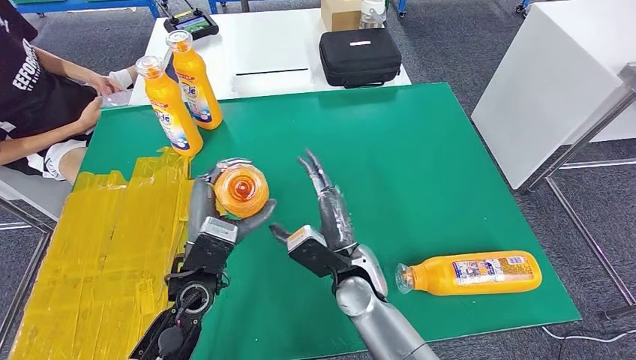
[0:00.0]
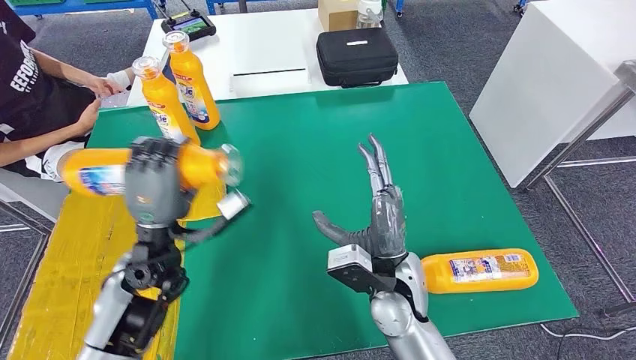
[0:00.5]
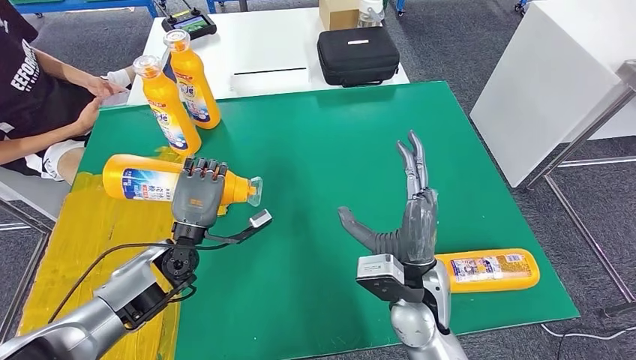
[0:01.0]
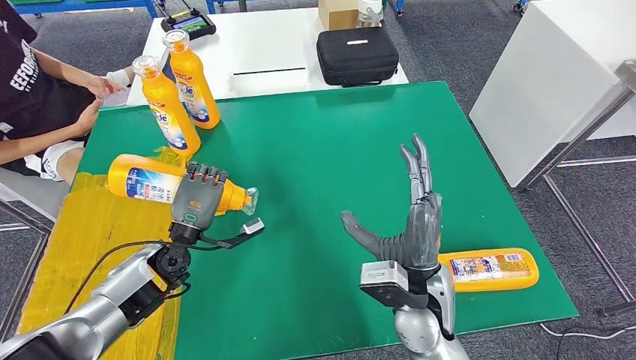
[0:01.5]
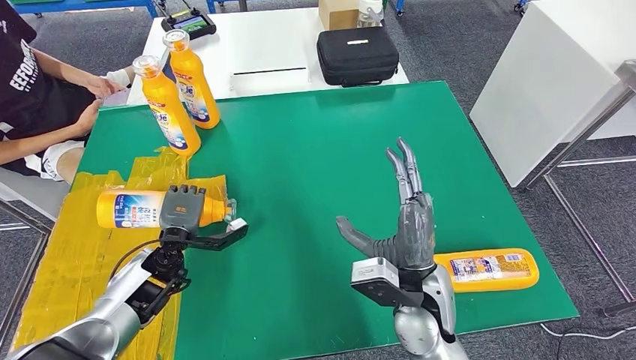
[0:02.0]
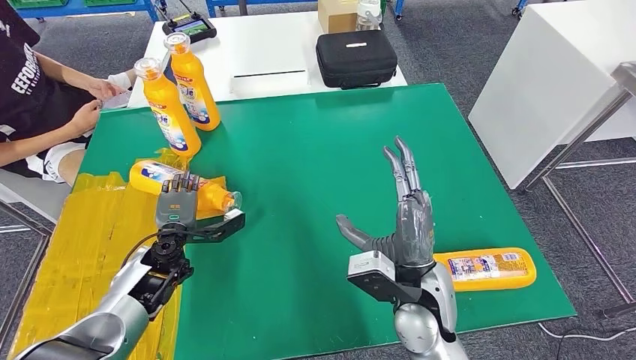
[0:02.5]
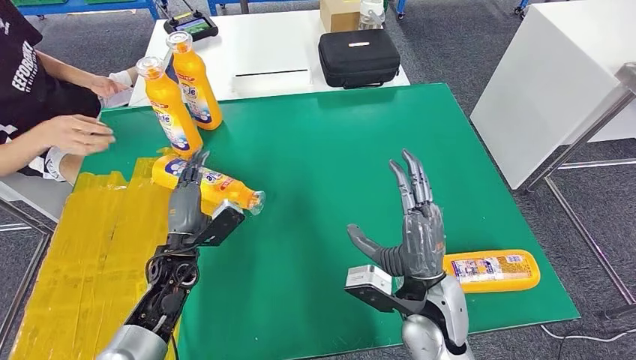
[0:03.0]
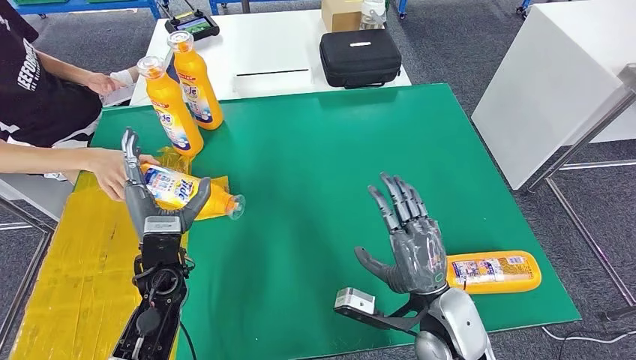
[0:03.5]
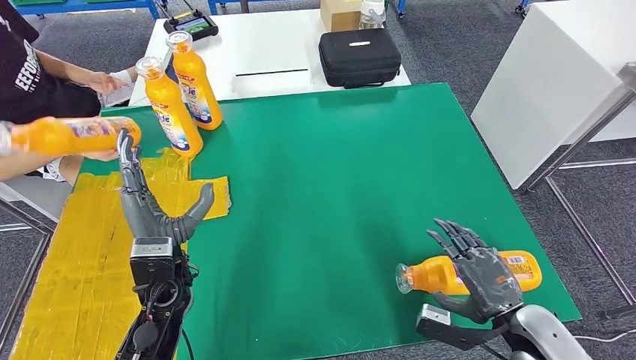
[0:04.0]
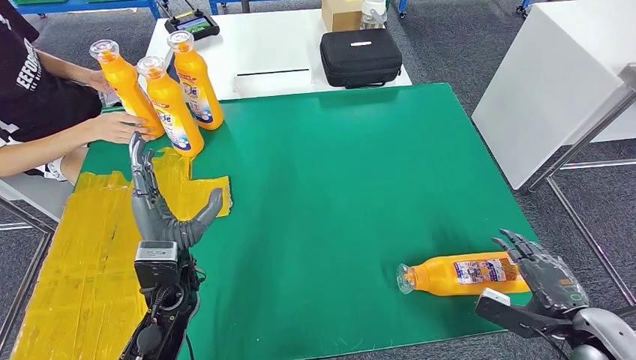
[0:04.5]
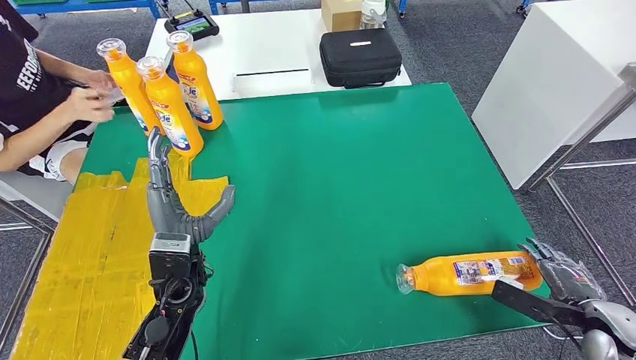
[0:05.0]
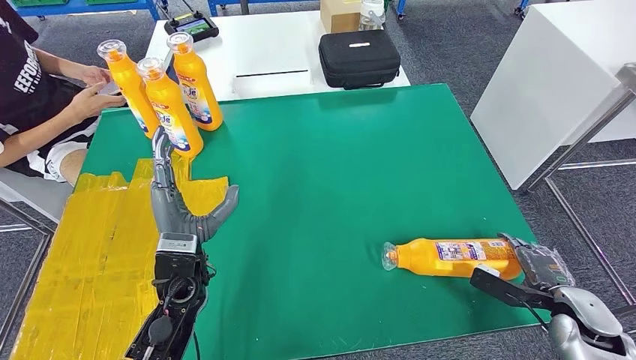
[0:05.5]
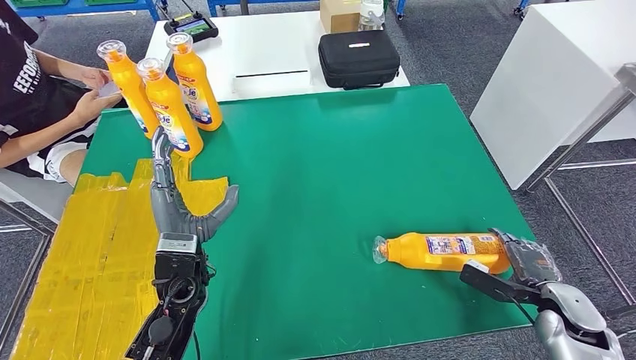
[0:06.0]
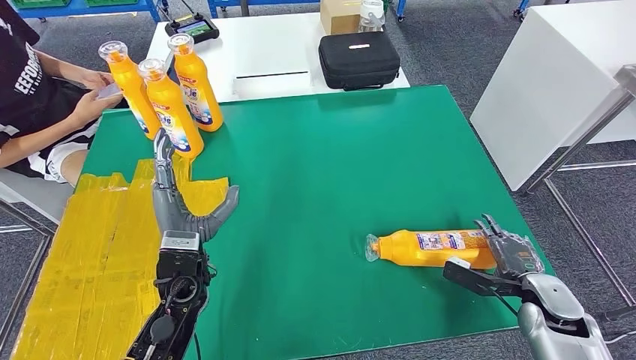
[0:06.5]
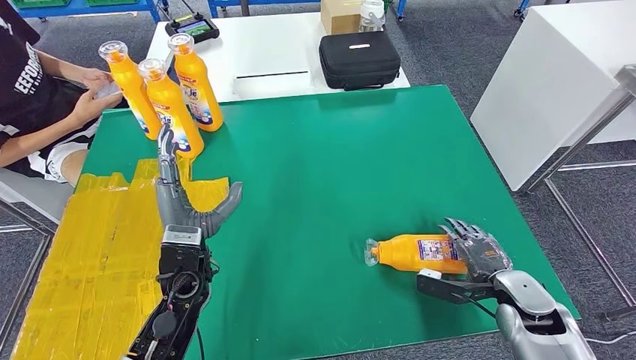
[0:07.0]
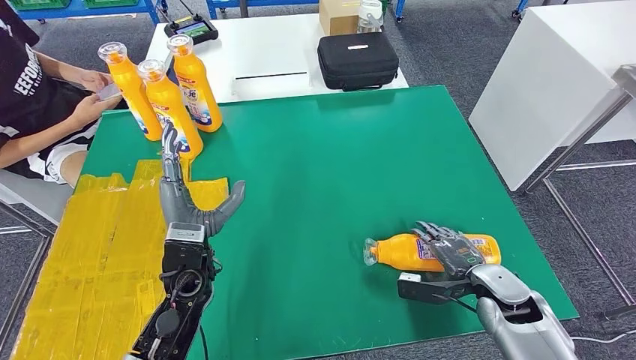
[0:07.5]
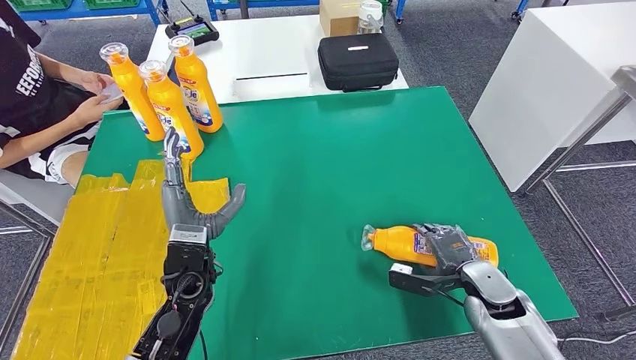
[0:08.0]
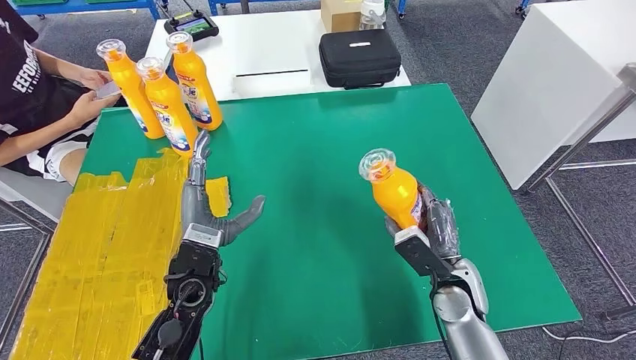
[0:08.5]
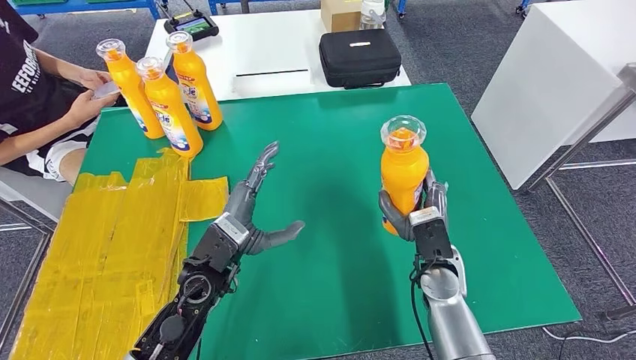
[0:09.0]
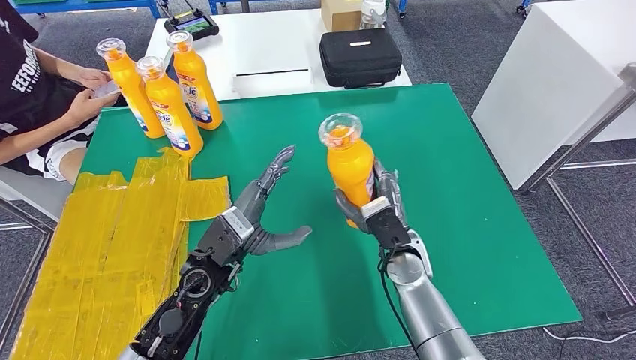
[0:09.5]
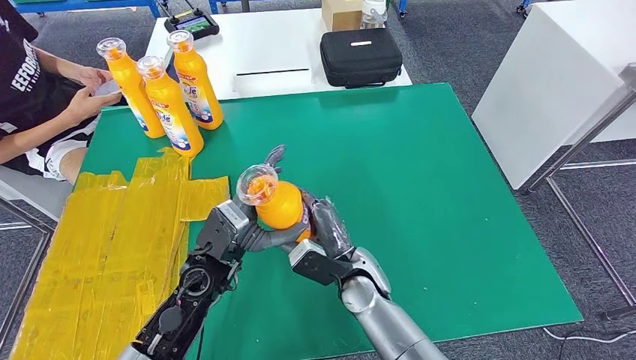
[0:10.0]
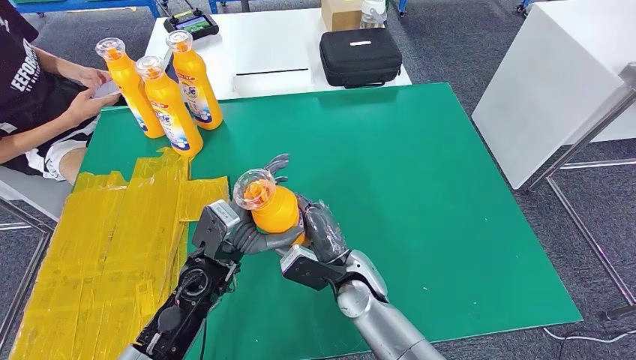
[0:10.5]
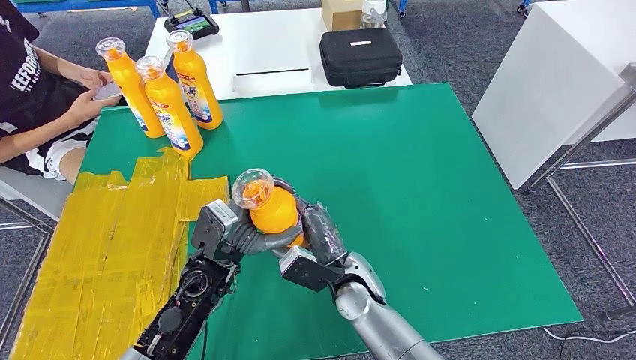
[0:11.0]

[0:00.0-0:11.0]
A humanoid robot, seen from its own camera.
Step, 0:00.0 to 0:02.5: Flip the fast-moving consumer goods bottle to the front side.
Step, 0:08.5 to 0:09.5: Pick up the fast-moving consumer goods bottle from the table.
0:05.5 to 0:07.5: The right hand travels to the left by some 15 cm.
0:09.0 to 0:11.0: The right hand moves to the left, approximately 15 cm.

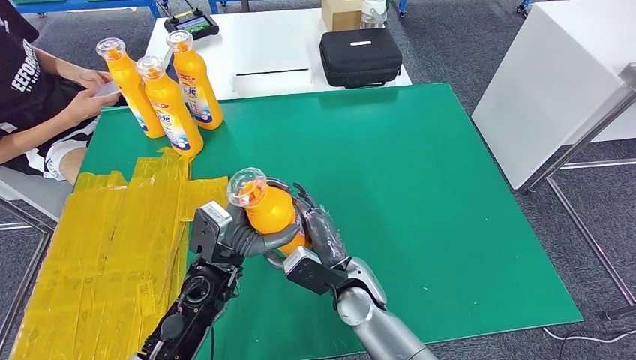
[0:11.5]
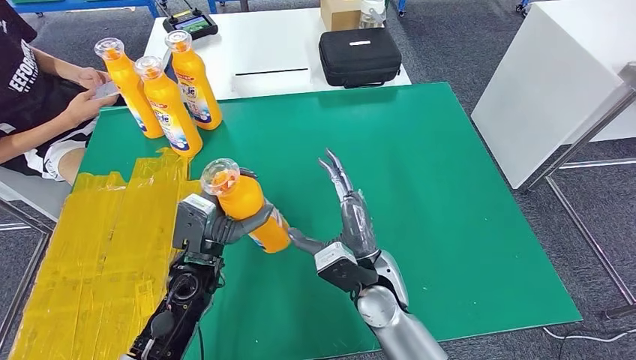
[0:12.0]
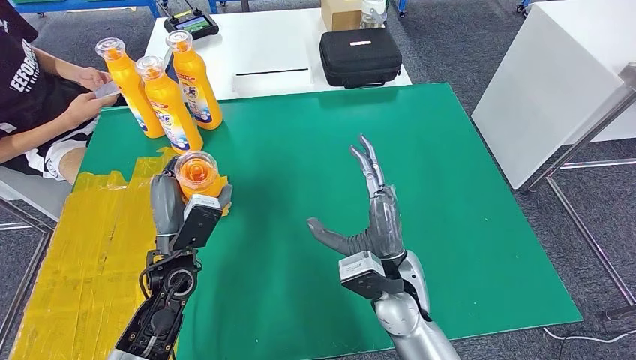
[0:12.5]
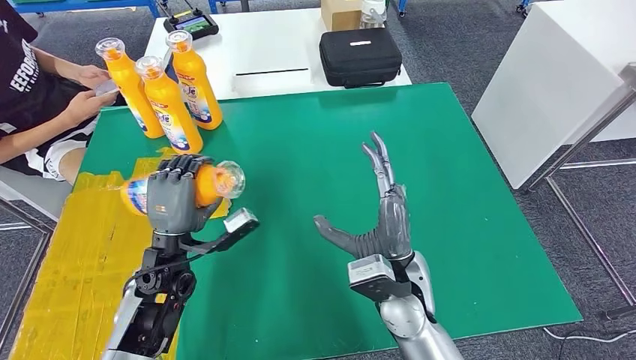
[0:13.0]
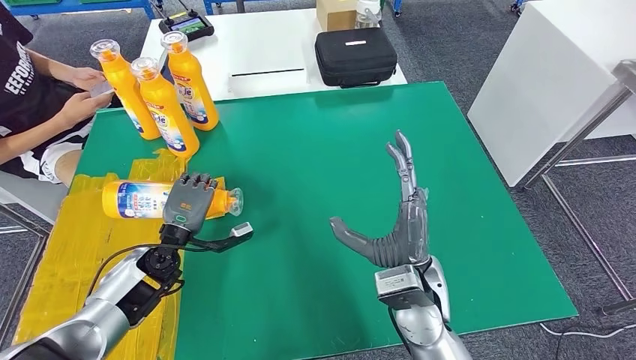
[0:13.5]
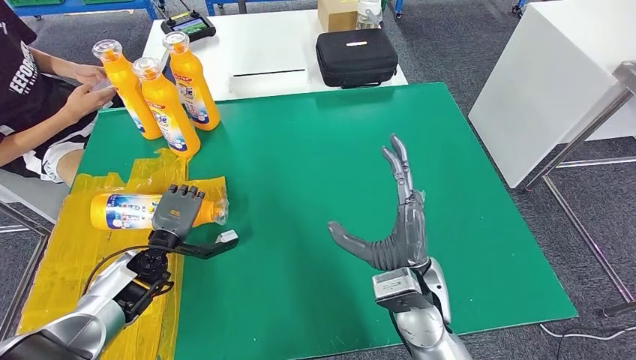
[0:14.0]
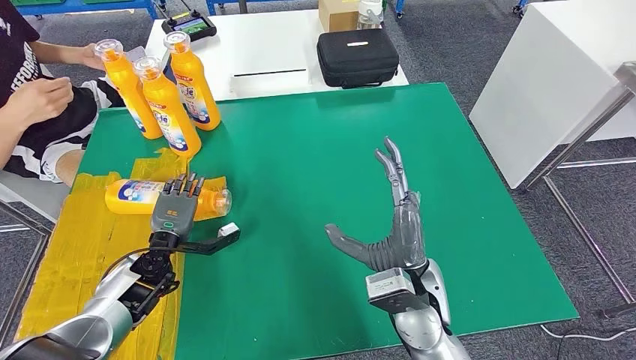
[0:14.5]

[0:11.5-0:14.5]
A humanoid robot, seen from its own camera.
Step, 0:11.5 to 0:14.5: Flip the fast-moving consumer goods bottle to the front side.
0:11.5 to 0:13.0: The left hand goes roughly 5 cm to the left. The right hand travels upward and to the right by about 10 cm.
